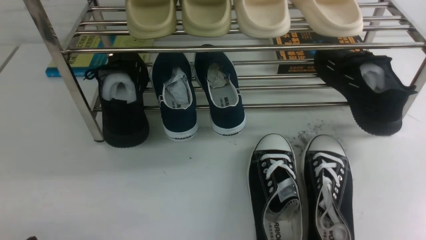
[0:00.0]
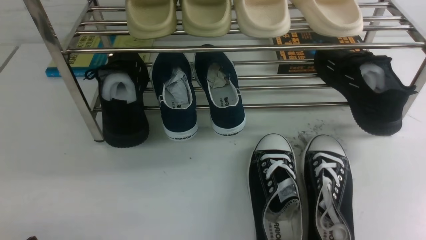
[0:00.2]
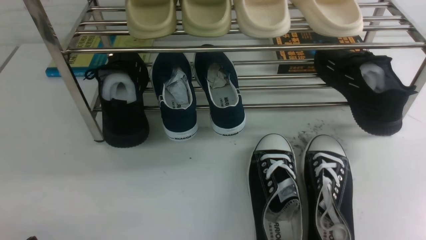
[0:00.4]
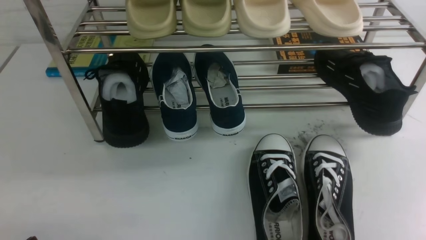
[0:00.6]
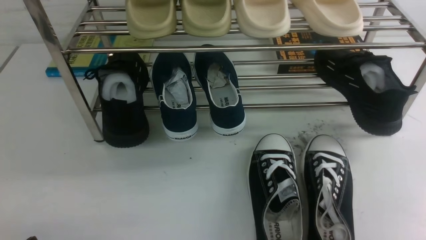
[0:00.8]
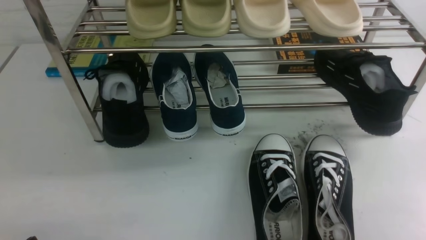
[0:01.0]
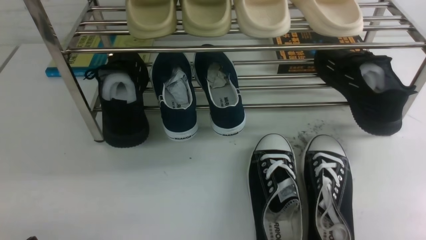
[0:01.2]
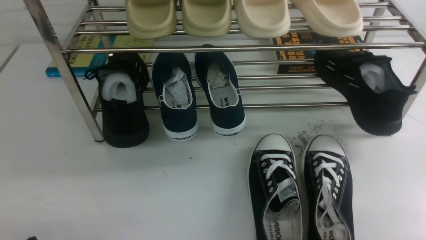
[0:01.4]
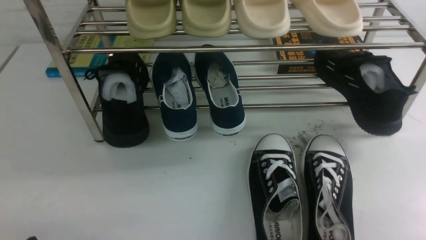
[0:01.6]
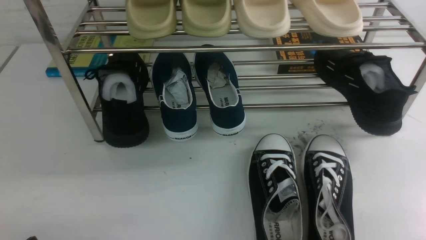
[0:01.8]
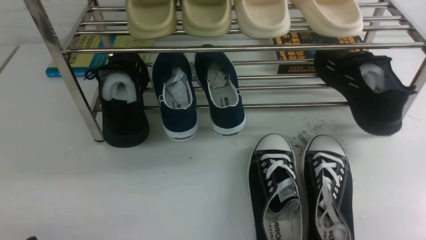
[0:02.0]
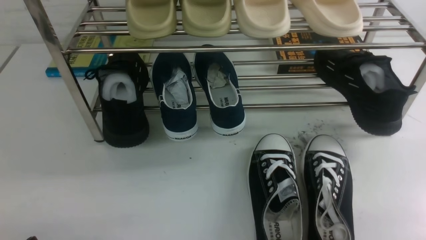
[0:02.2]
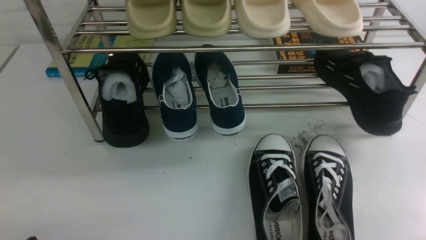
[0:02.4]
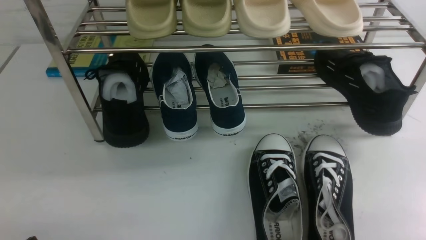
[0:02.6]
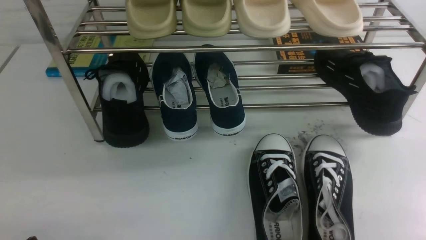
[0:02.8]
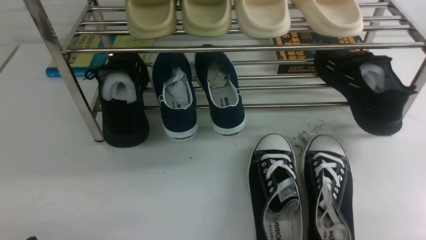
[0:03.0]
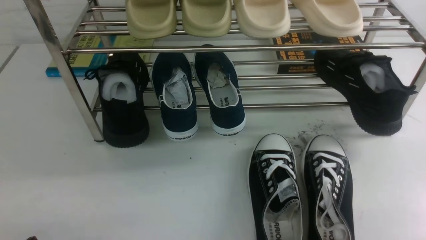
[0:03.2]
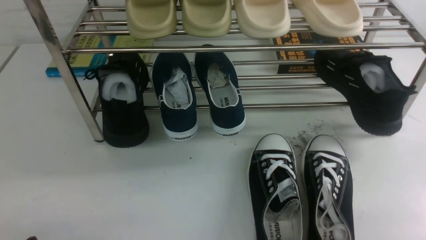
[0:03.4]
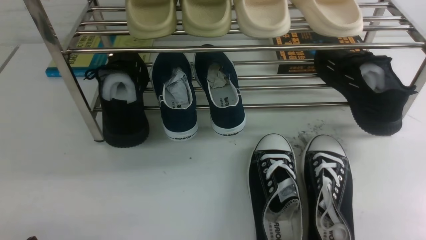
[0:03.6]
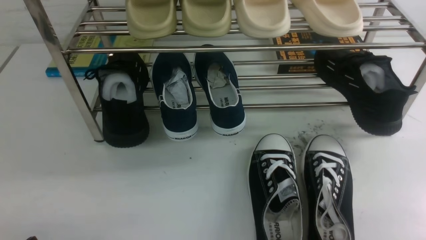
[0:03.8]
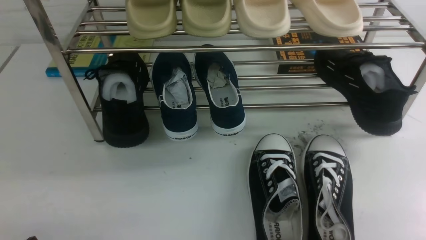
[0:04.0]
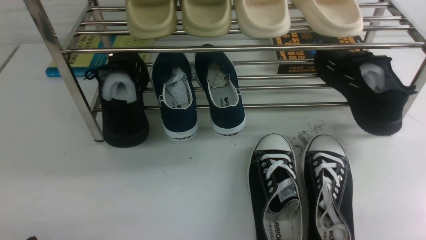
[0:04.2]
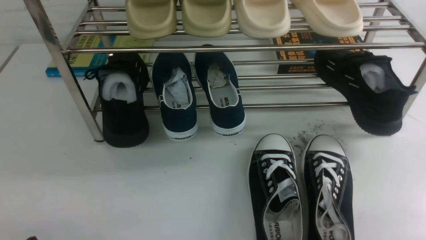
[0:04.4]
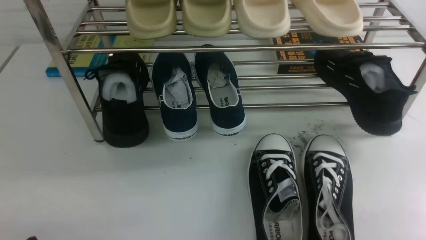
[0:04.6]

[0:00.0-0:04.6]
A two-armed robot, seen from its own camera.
0:03.0 to 0:04.6: Both grippers stay put.
